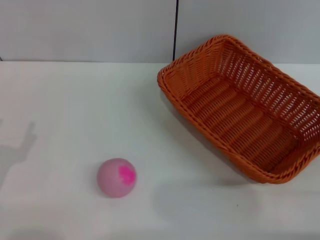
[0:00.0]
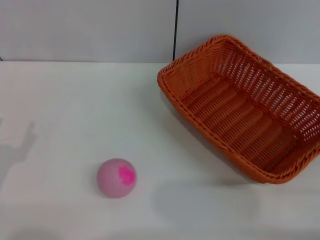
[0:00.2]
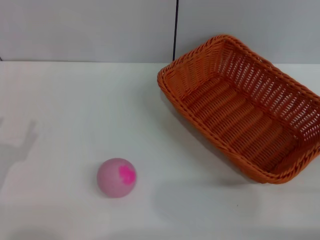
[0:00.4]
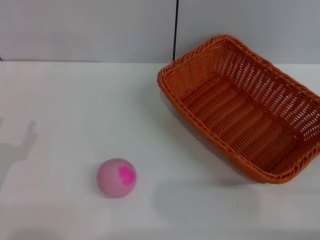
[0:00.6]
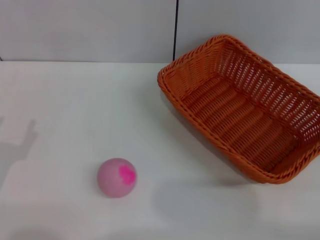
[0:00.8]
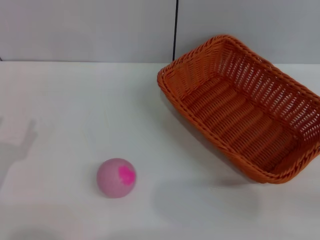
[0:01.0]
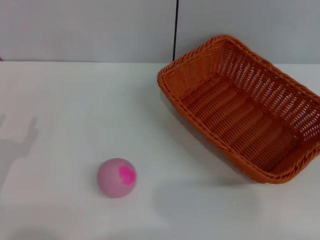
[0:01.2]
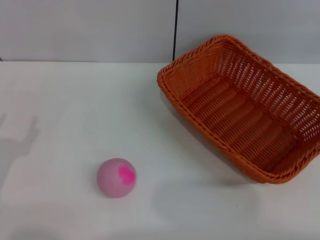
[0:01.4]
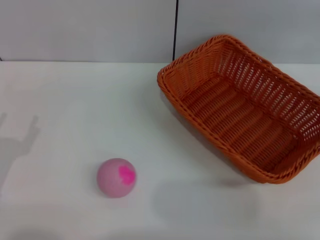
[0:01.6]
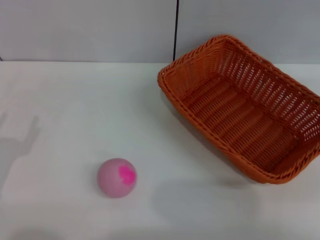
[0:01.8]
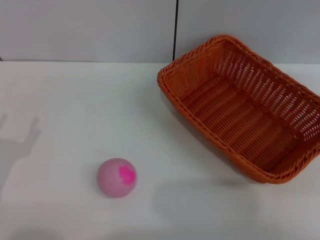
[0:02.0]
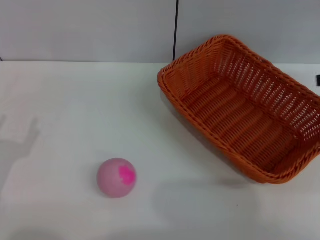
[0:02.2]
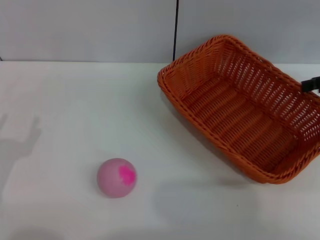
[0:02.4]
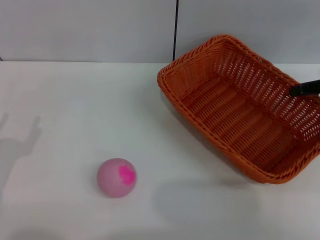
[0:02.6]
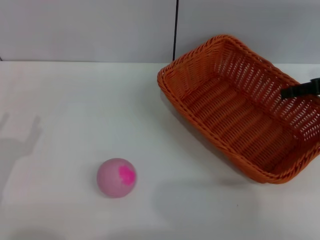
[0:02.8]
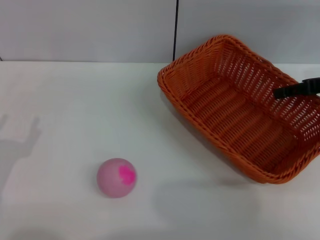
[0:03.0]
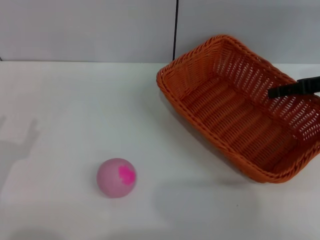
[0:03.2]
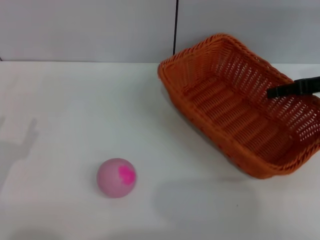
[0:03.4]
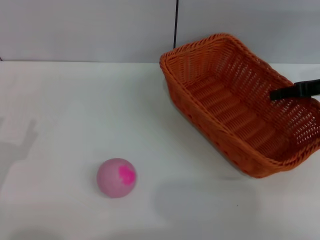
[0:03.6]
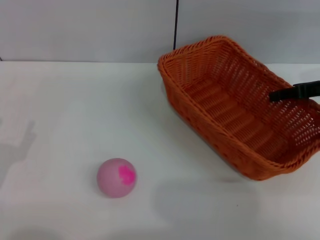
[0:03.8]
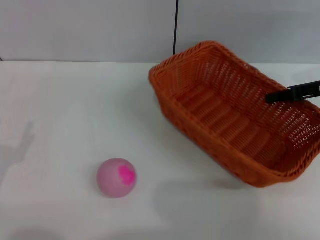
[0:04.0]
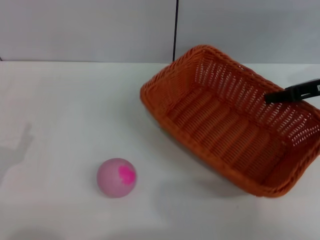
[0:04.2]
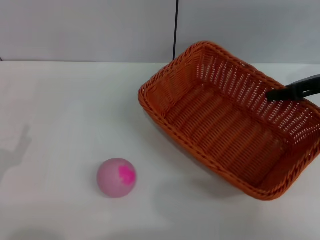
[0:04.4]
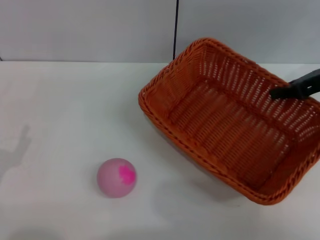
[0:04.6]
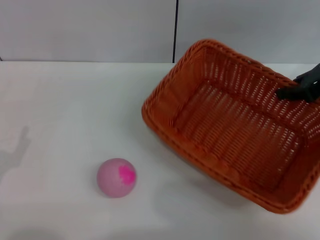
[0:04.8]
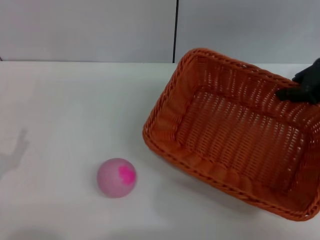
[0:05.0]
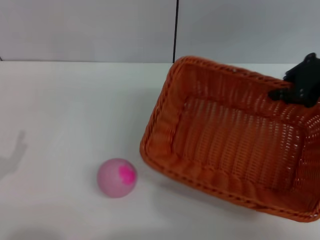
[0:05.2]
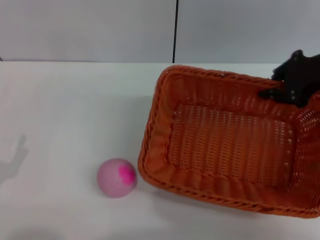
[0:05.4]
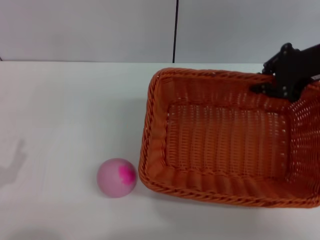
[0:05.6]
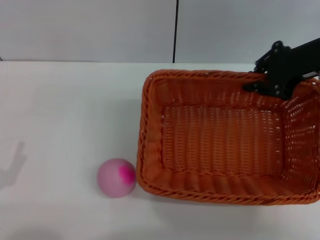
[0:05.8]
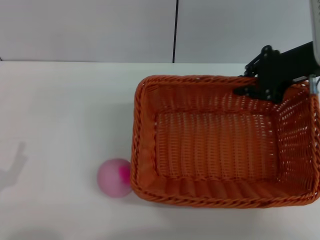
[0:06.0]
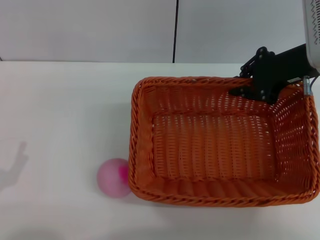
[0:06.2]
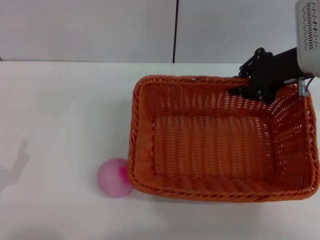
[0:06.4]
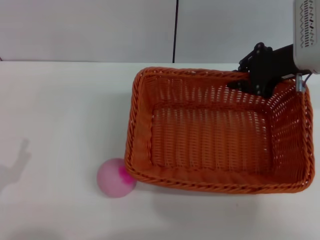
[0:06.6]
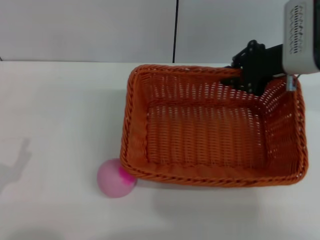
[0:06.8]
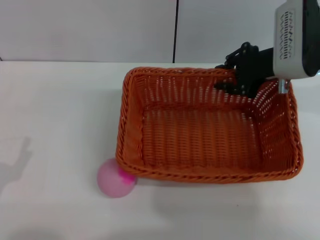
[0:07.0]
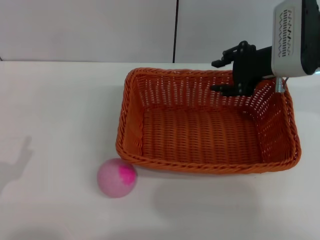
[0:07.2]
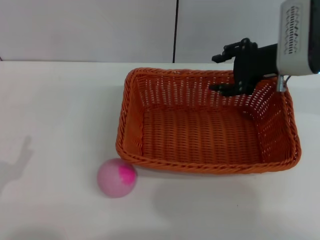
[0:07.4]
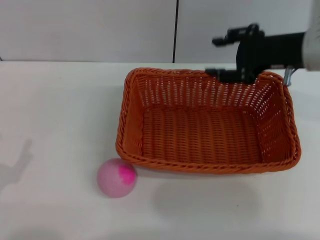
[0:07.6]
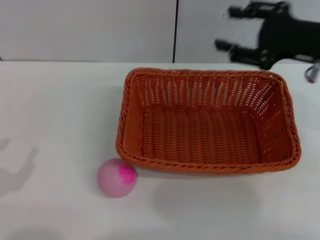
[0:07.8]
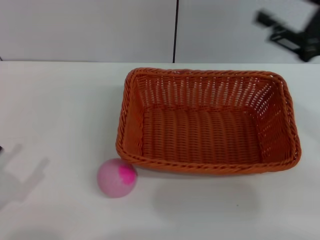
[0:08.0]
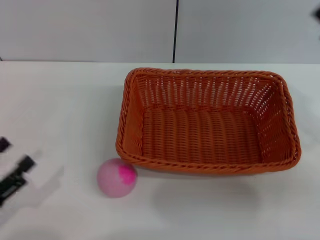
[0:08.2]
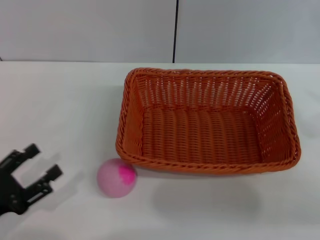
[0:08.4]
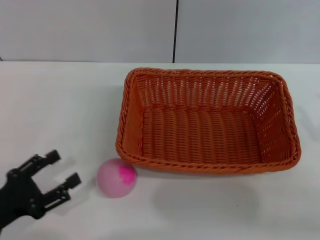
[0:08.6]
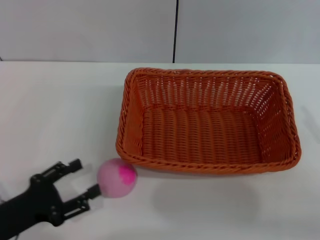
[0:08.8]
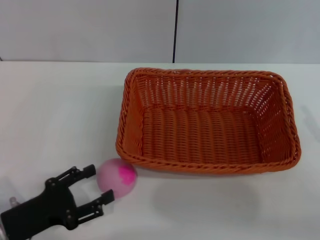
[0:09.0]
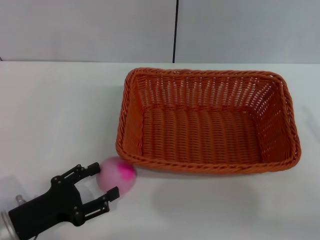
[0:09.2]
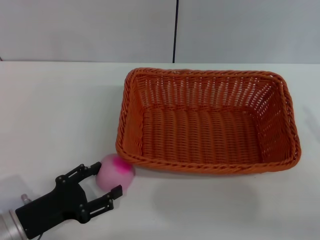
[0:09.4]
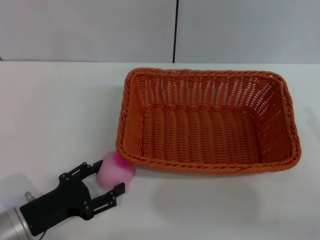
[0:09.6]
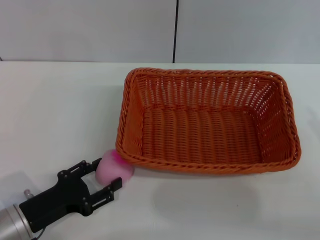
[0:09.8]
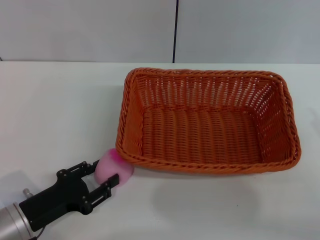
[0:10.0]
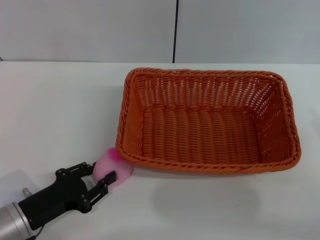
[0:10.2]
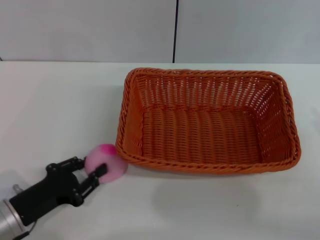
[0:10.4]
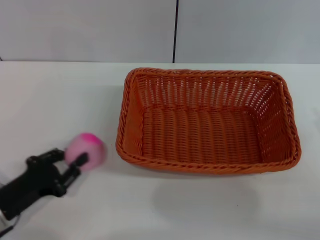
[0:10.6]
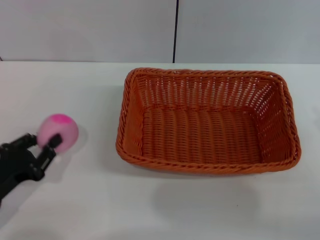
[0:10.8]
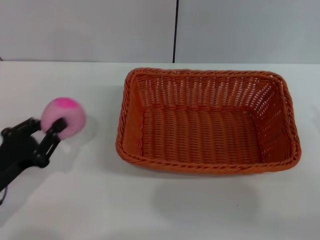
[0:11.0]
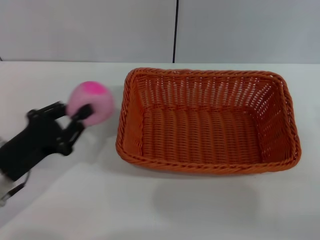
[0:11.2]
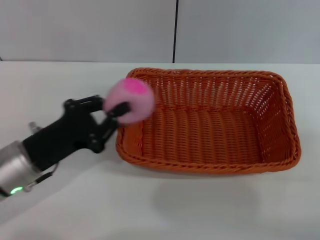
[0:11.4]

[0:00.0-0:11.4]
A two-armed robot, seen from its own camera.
Step, 0:00.0 to 0:04.6: Pick up the light basket with the right gripper.
Step, 0:04.8 to 0:07.4: Place the light basket in the center of view with the right gripper.
Step, 0:07.6 to 0:10.8: Pick up the peach with the left gripper.
0:01.4 to 0:02.8: The right gripper is displaced to the left and forward by approximately 15 cm.
0:02.8 to 0:04.2: The right gripper closes.
0:04.2 to 0:05.6: The right gripper is displaced upward by some 5 cm.
0:05.6 to 0:07.2: The right gripper shifts by some 5 cm.
0:07.2 to 0:08.6: The right gripper shifts some 25 cm backward and to the right, and opens up.
0:08.6 to 0:10.0: The left gripper is displaced to the right by approximately 5 cm.
0:10.0 to 0:11.4: The left gripper travels upward and forward by some 10 cm, and closes up.

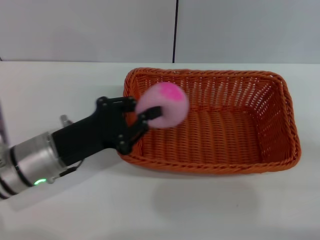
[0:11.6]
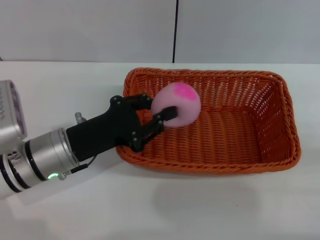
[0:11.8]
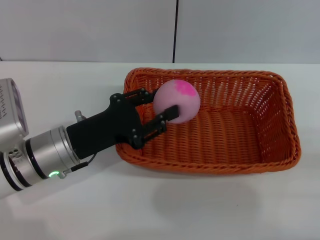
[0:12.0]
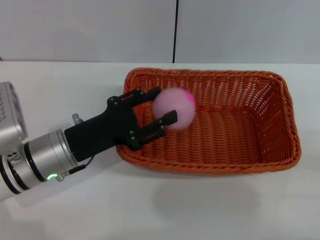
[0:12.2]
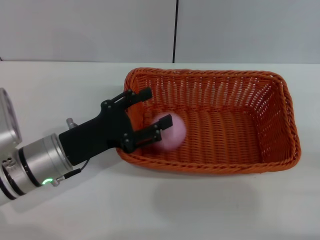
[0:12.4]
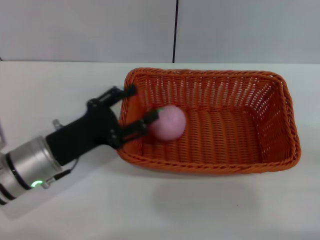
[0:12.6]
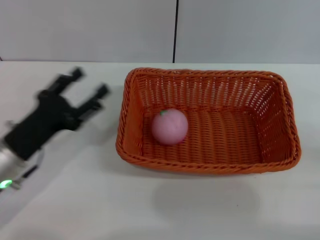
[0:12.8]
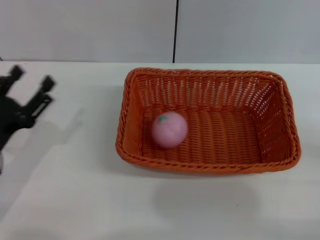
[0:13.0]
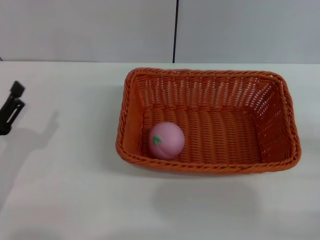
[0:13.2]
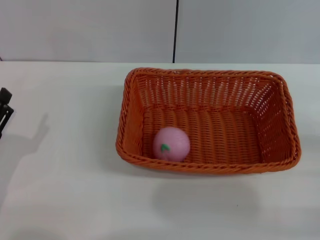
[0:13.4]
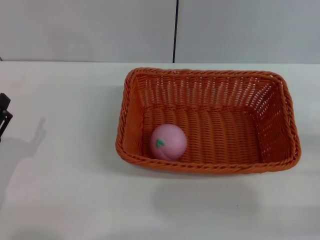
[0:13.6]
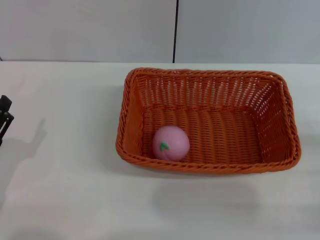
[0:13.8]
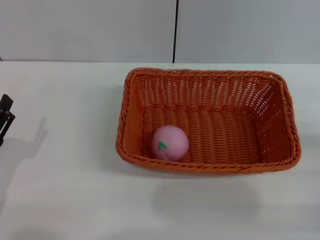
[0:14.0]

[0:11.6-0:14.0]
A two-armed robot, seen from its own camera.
Step, 0:11.6 to 0:12.4: Place the peach into the basket with the left gripper.
0:11.6 to 0:12.8: The left gripper ends up roughly 5 cm from where it was, and opens.
0:12.8 to 0:14.0: The left gripper heads backward and to the left, covering approximately 10 cm.

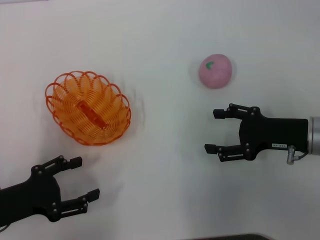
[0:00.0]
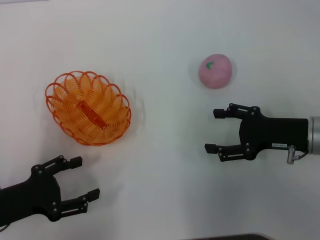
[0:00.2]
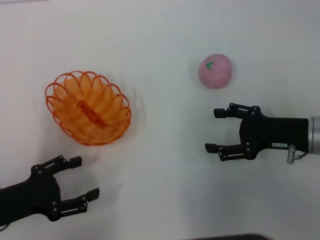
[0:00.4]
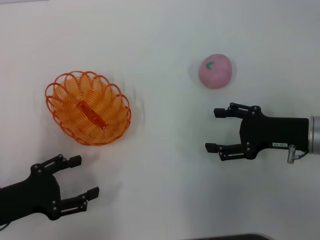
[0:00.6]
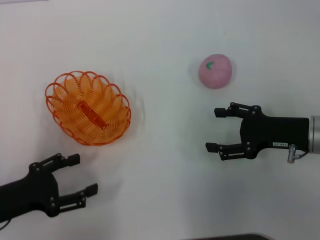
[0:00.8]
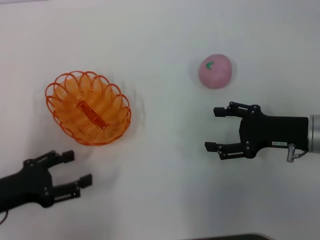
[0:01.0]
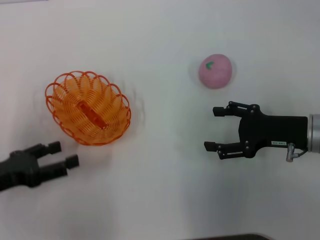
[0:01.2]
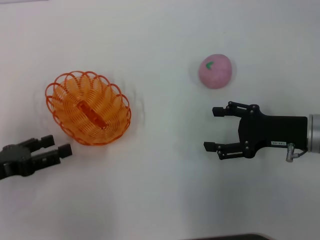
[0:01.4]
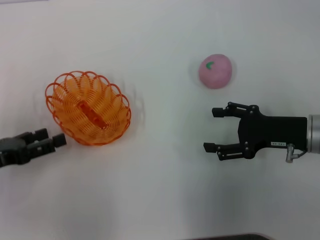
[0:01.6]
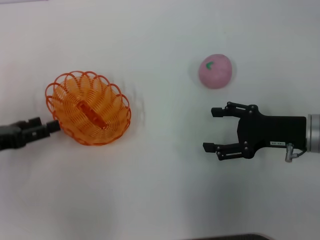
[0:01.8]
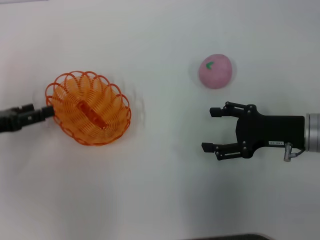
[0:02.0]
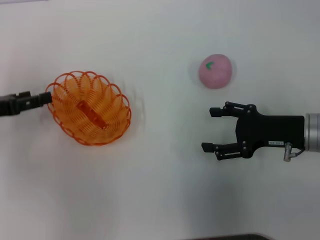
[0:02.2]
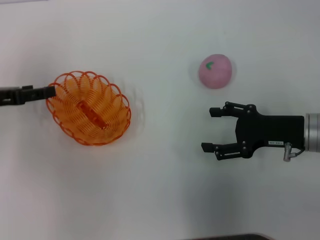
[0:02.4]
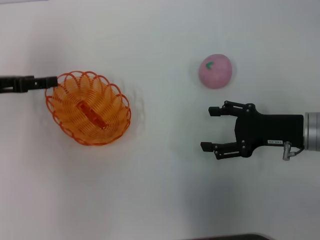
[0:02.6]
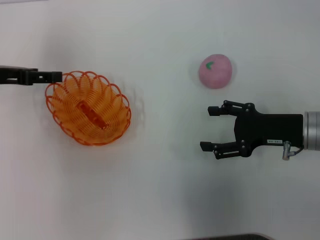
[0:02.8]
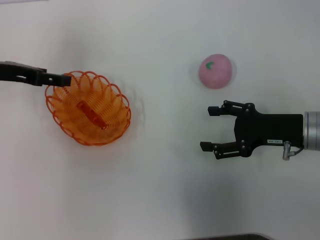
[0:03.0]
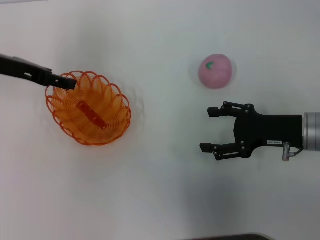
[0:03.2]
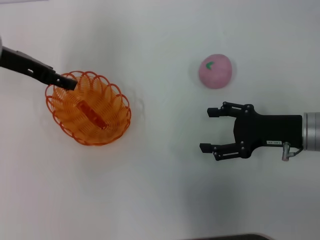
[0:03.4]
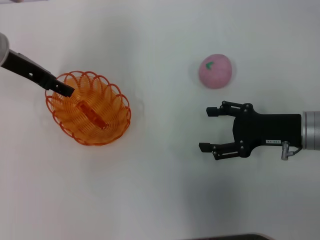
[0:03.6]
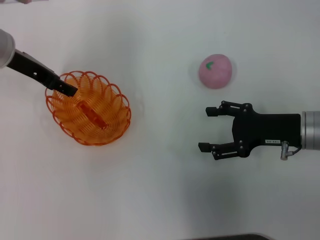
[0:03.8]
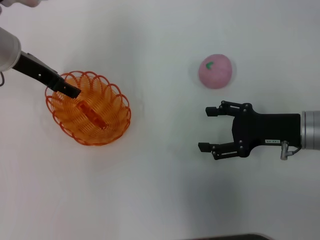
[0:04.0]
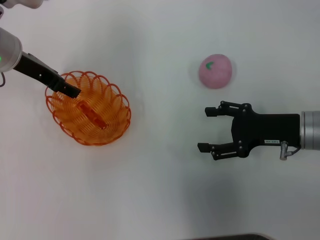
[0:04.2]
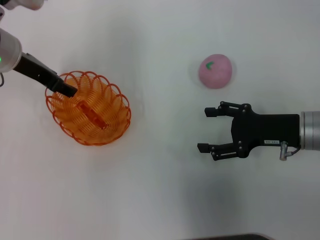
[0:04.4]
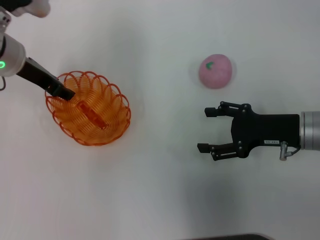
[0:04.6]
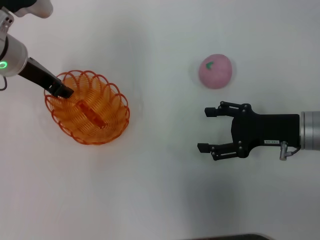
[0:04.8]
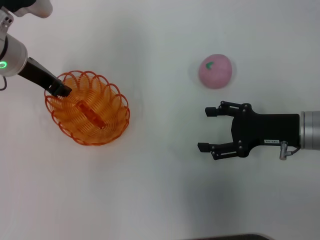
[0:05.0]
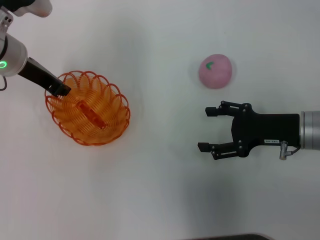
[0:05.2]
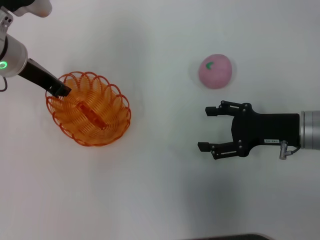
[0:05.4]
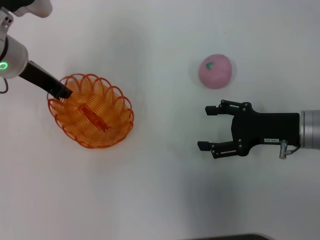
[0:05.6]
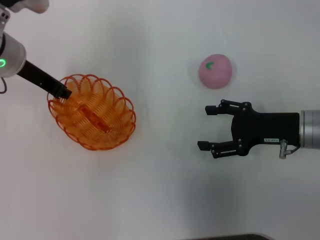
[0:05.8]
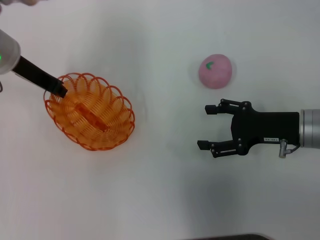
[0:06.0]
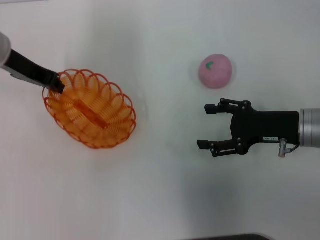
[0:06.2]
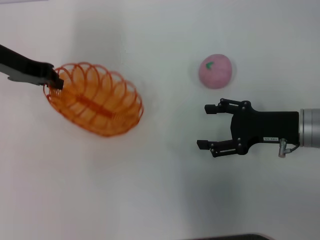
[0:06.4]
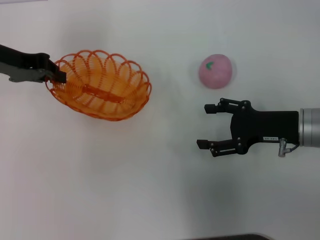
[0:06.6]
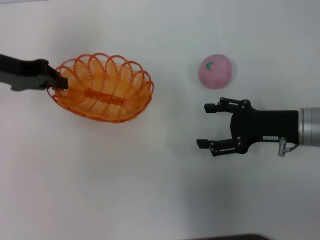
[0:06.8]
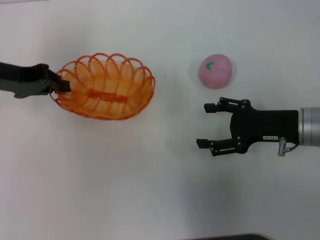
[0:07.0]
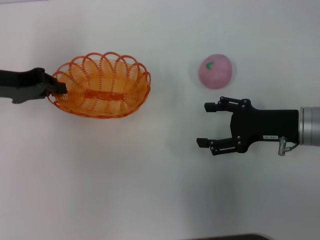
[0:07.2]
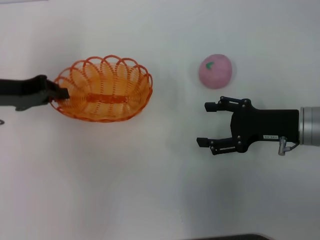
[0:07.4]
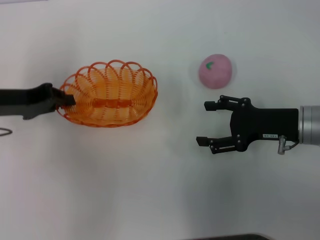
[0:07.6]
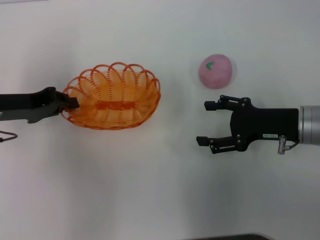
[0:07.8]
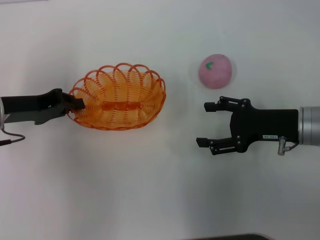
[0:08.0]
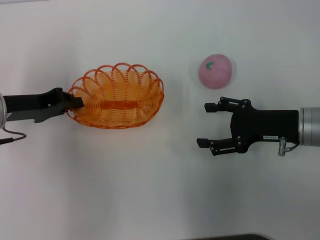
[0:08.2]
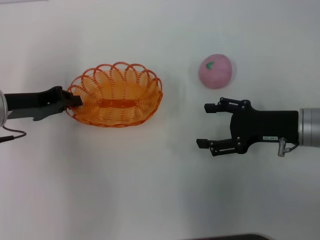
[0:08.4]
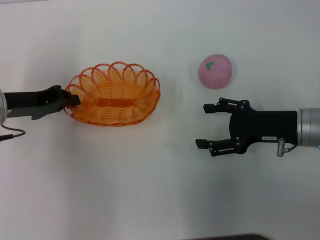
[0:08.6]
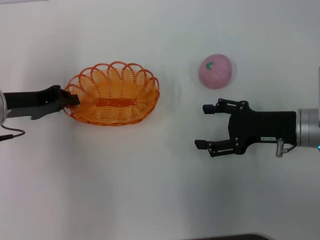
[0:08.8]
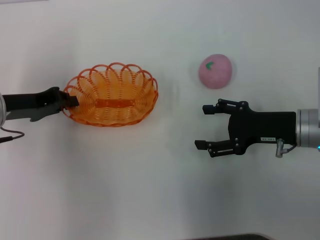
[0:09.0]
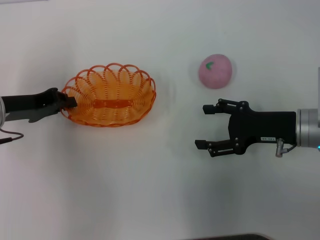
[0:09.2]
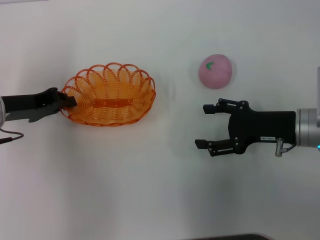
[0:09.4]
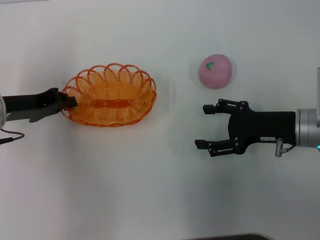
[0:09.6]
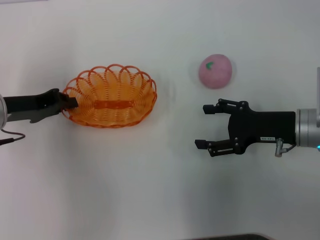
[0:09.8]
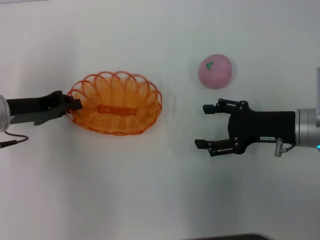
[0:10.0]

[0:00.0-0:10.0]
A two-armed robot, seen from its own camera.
Step, 0:00.0 to 0:06.4: Pick up the basket with the left gripper.
0:00.0 to 0:01.4: The left gripper changes place by about 5 cm.
0:01.4 to 0:02.8: The left gripper moves forward and upward, approximately 15 cm.
0:02.8 to 0:04.2: The left gripper shifts roughly 10 cm to the right.
0:04.2 to 0:05.8: The left gripper closes.
0:05.8 to 0:07.2: The left gripper moves to the left, approximately 5 cm.
0:07.2 to 0:08.6: The left gripper ends up roughly 5 cm from where it was.
0:08.6 to 0:10.0: Both grippers stay about where they are.
